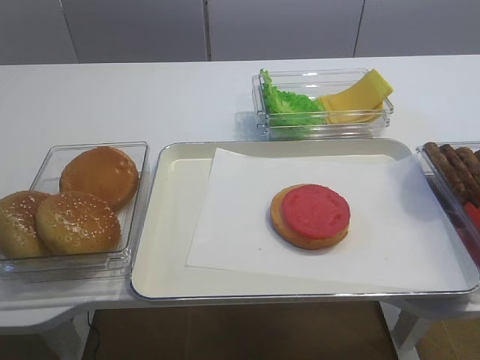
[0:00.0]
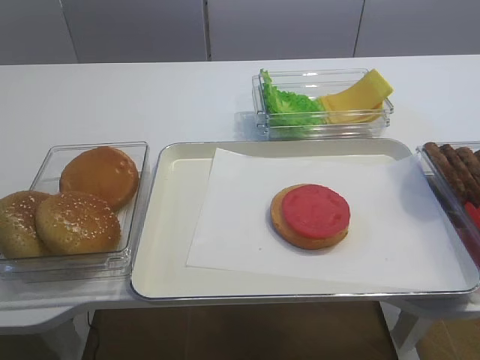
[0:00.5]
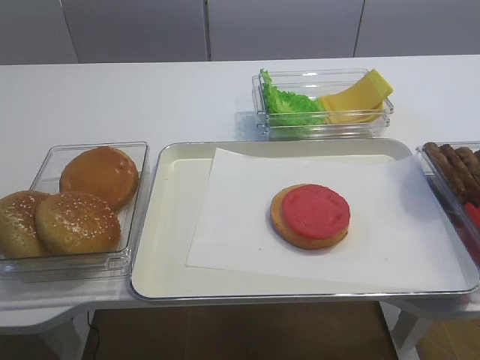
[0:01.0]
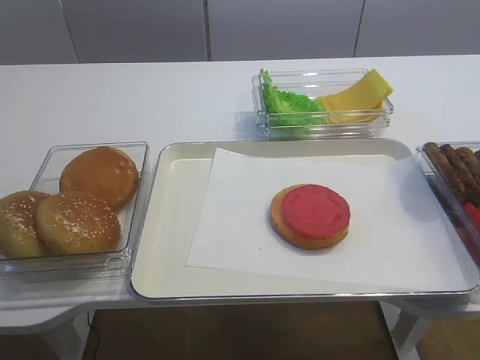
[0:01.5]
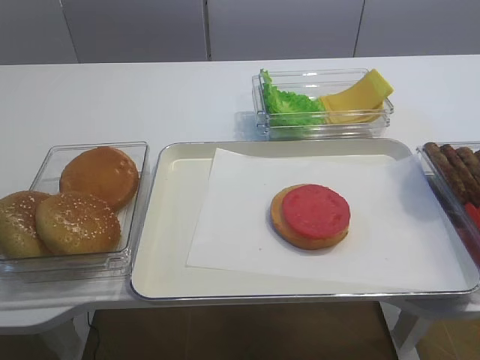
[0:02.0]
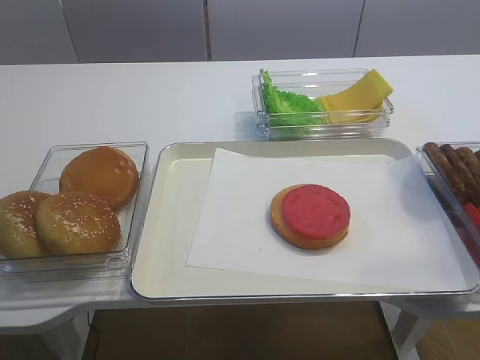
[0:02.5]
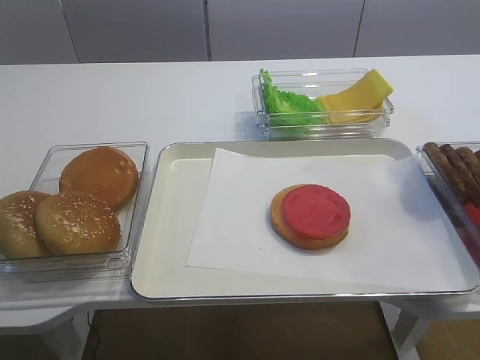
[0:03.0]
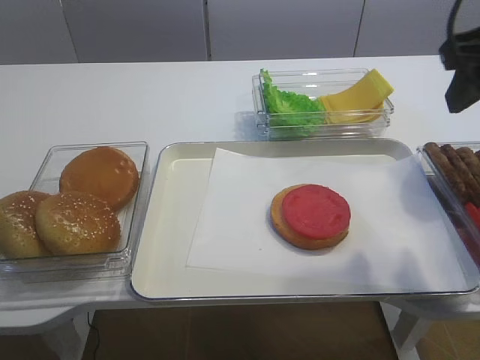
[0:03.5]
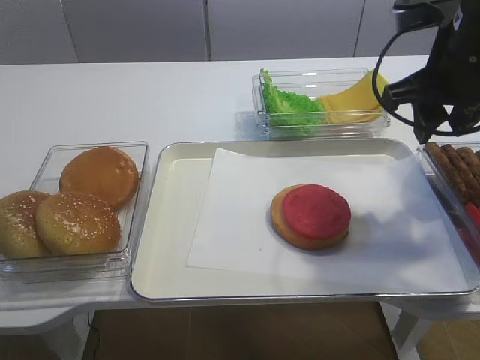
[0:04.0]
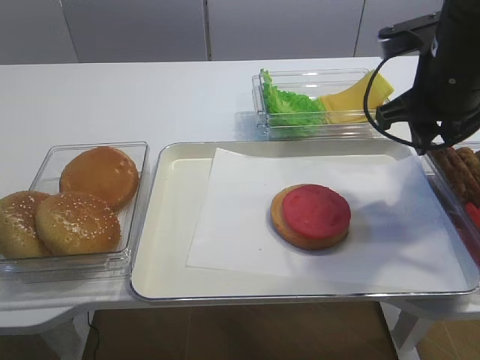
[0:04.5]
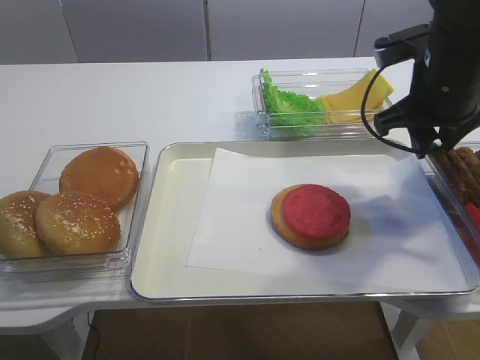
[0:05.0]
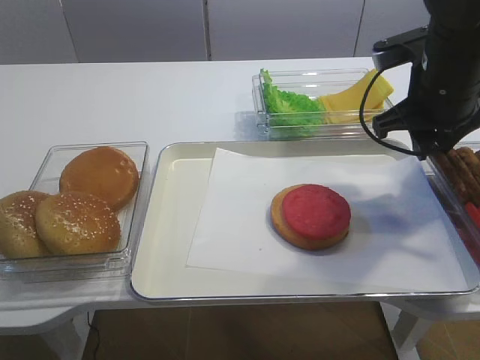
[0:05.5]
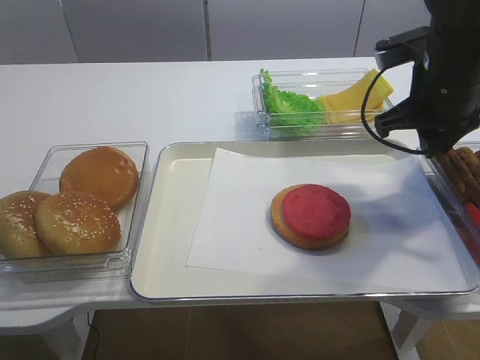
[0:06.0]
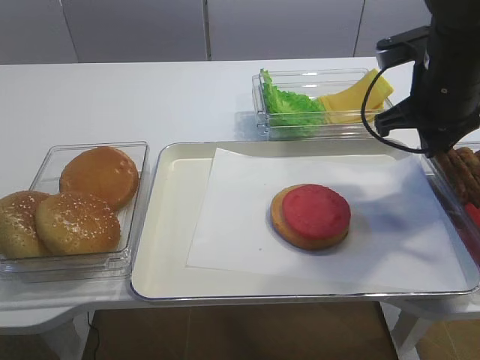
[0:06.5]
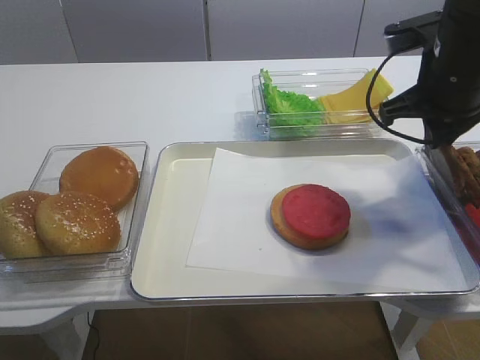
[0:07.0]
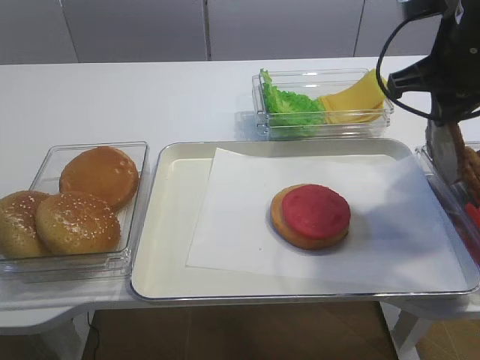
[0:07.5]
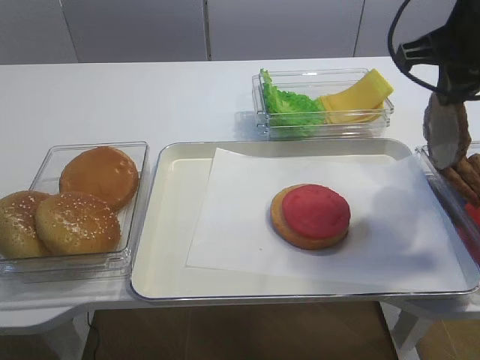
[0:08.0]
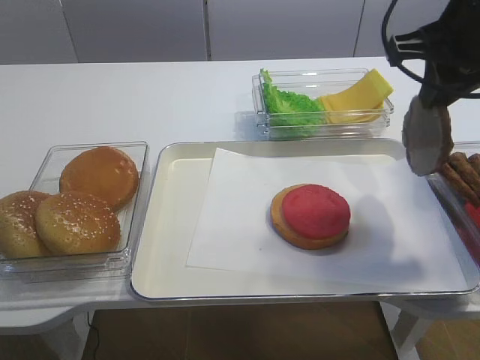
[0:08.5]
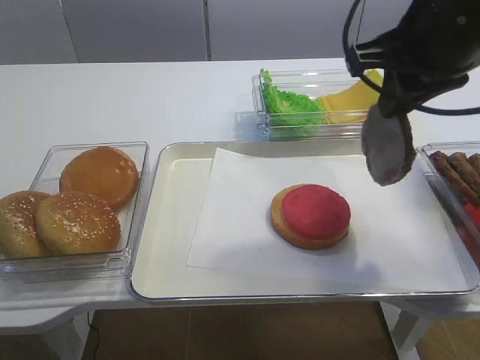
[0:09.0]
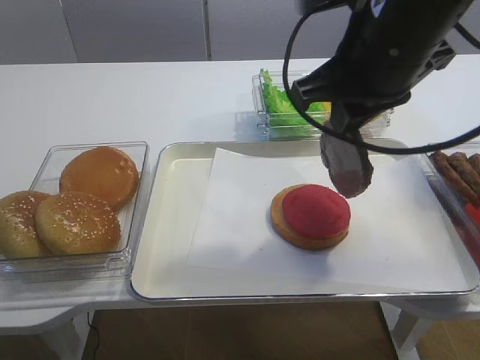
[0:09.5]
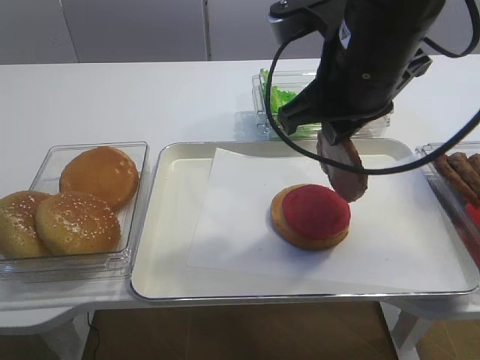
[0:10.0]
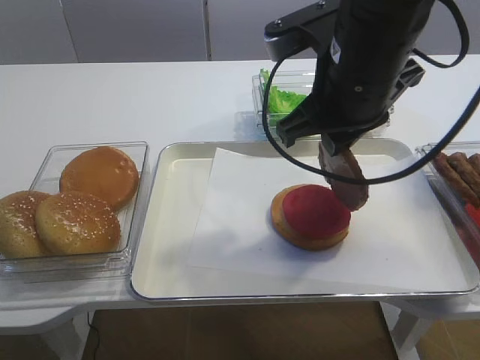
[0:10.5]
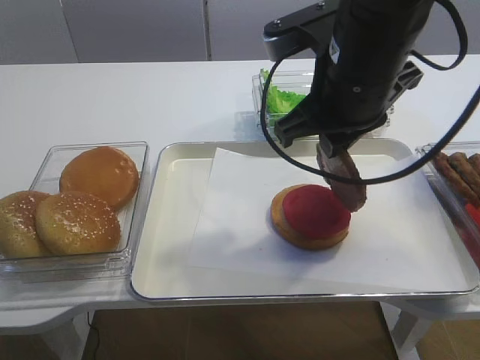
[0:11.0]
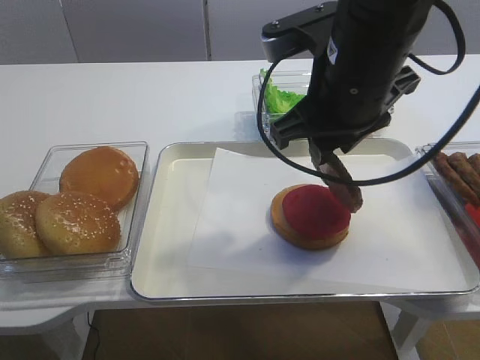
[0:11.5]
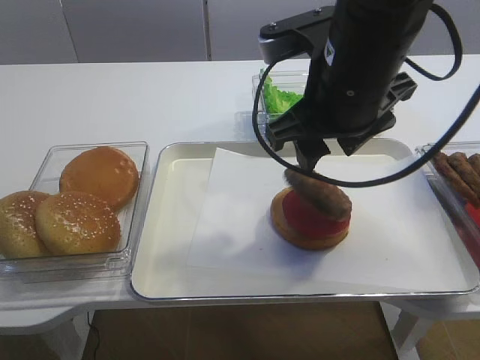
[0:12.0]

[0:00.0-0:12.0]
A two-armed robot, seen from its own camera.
Step, 0:00.0 to 0:07.0: Pick up the cutlet with the right gripper.
0:02.0 to 0:04.0: The right gripper shifts approximately 30 cm forward.
0:04.0 to 0:06.0: The right gripper shifts by about 5 cm, and closes.
0:06.0 to 0:08.0: The right gripper shifts about 10 cm upward.
0:08.0 to 0:10.0: The right gripper heads to the left, covering approximately 10 cm.
0:10.0 to 0:12.0: The right gripper opens its fingers.

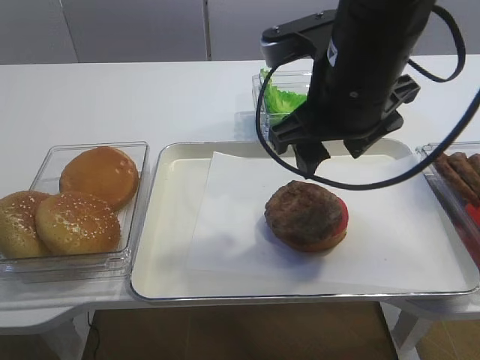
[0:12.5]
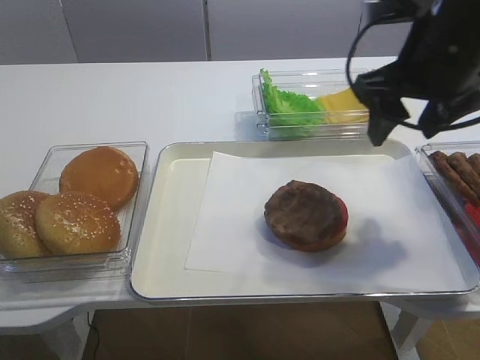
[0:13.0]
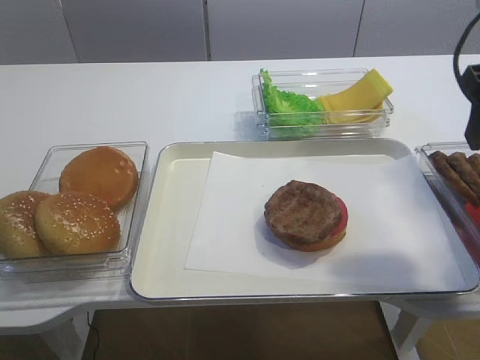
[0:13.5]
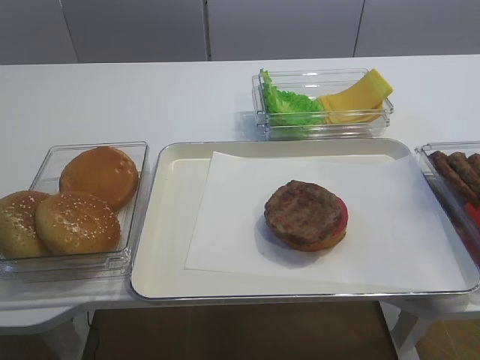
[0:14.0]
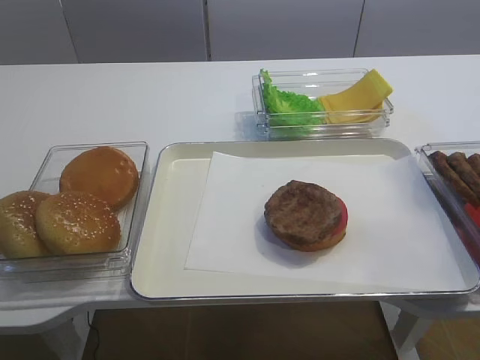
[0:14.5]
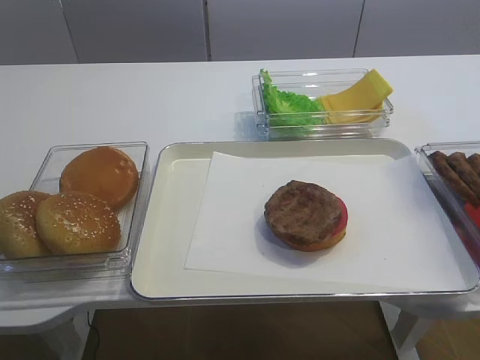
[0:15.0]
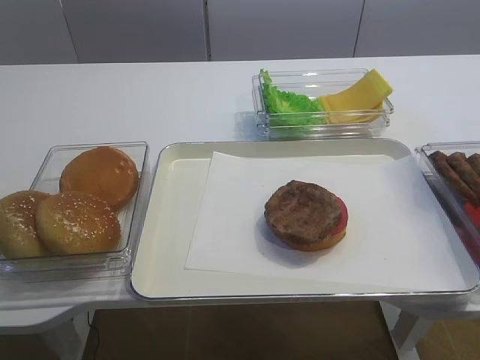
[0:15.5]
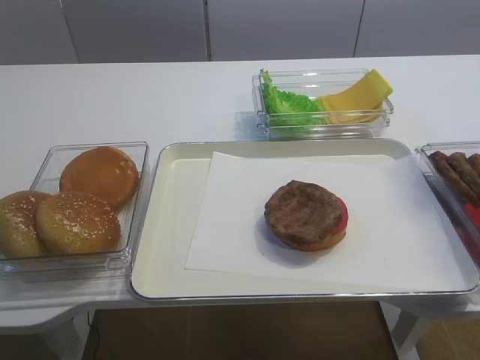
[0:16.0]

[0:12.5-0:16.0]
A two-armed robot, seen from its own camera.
0:12.5 to 0:14.5: The right gripper shifts approximately 30 cm backward and to the right.

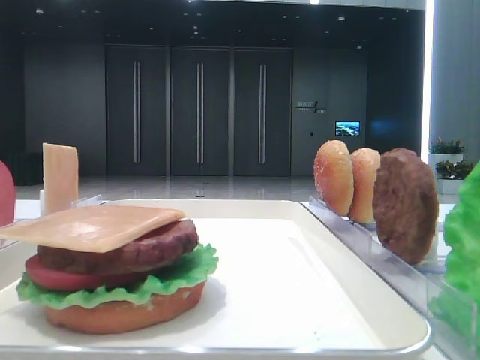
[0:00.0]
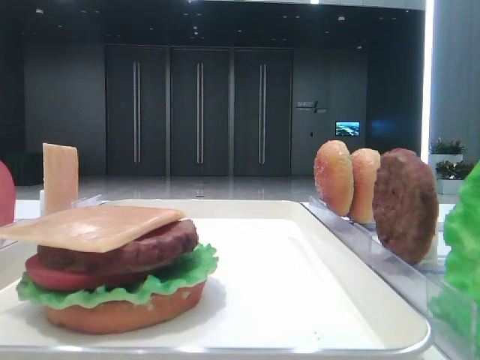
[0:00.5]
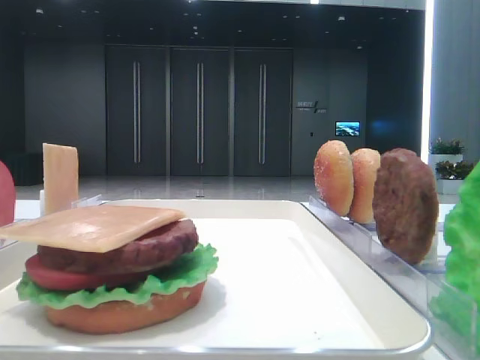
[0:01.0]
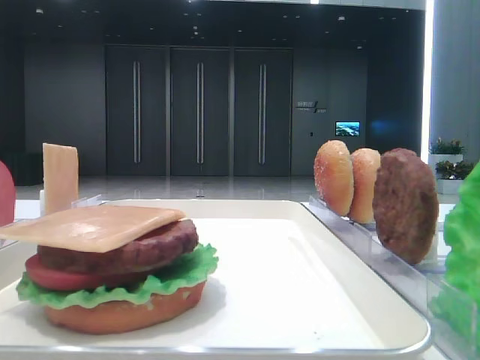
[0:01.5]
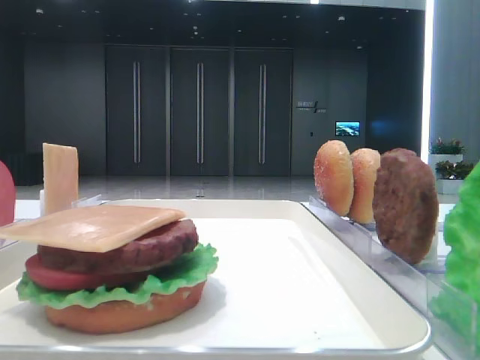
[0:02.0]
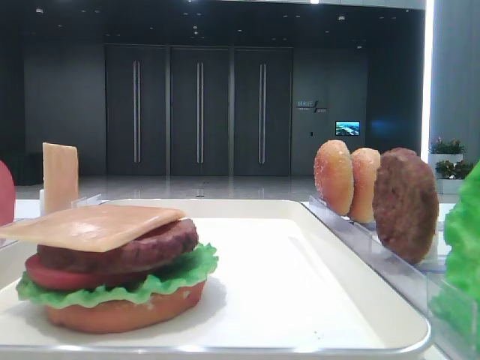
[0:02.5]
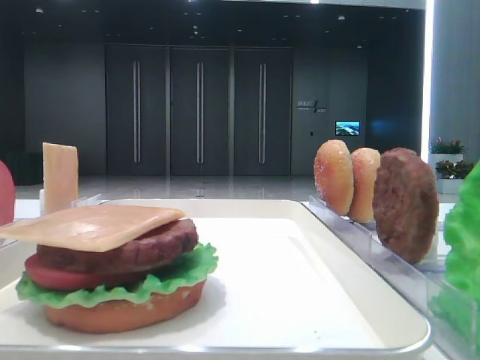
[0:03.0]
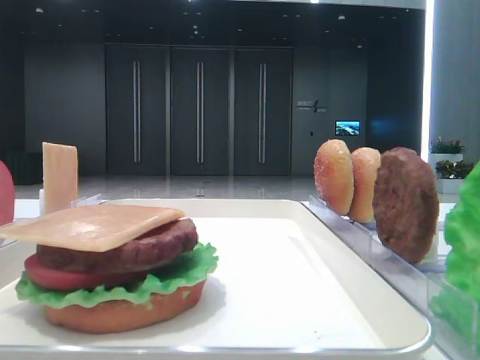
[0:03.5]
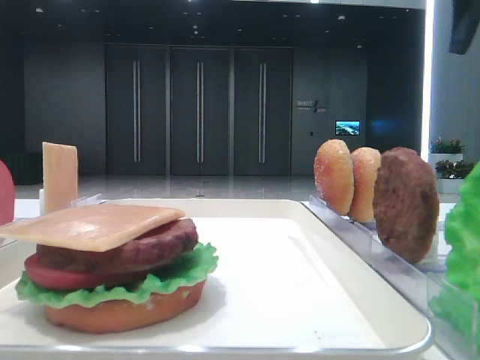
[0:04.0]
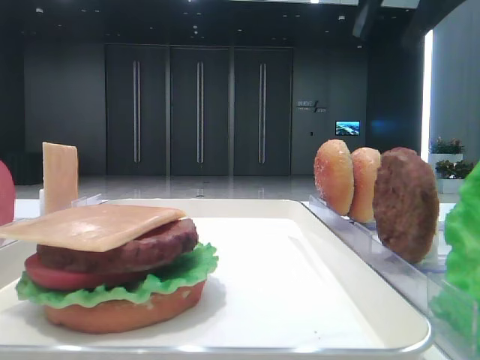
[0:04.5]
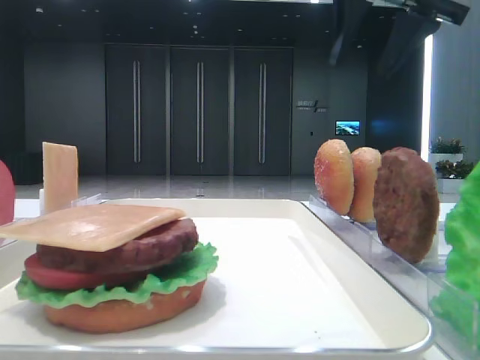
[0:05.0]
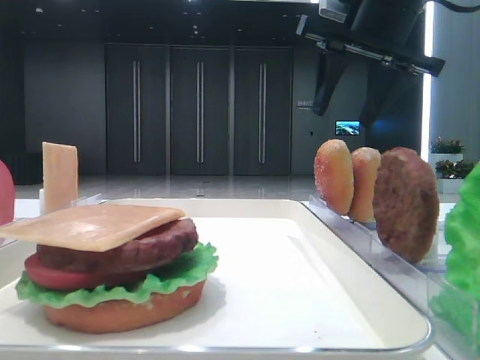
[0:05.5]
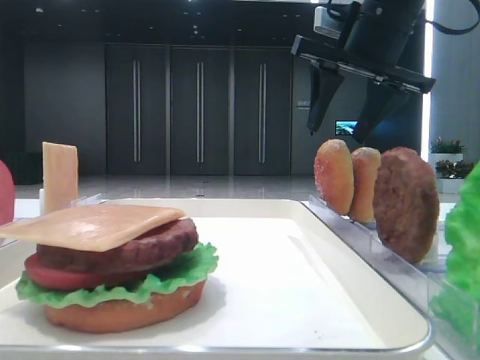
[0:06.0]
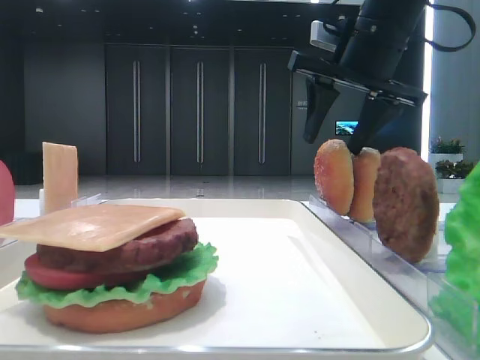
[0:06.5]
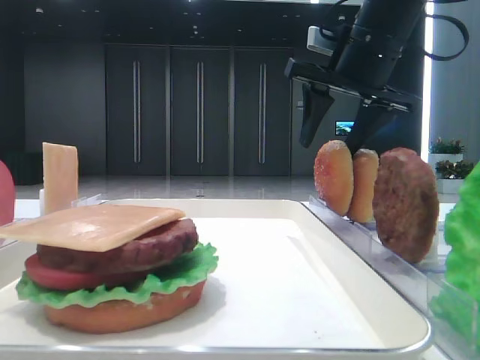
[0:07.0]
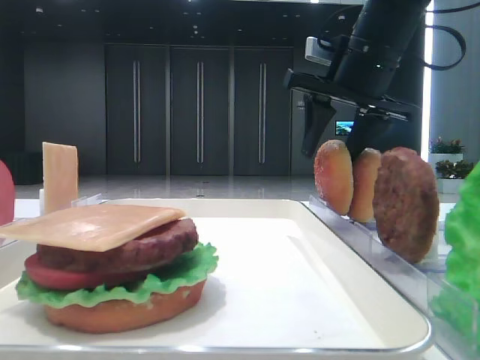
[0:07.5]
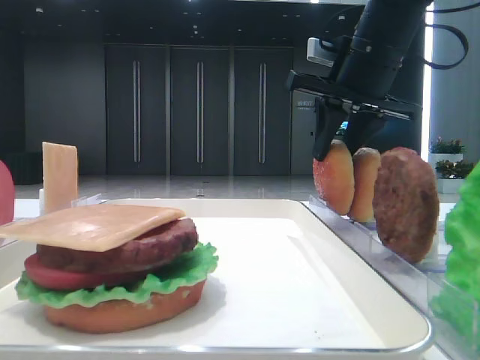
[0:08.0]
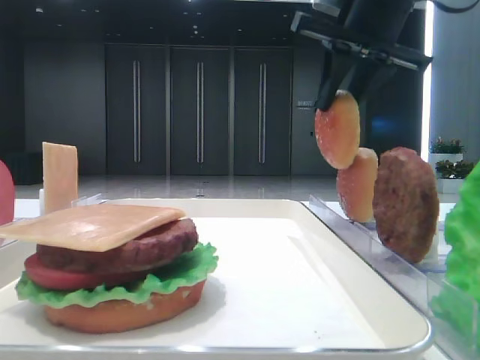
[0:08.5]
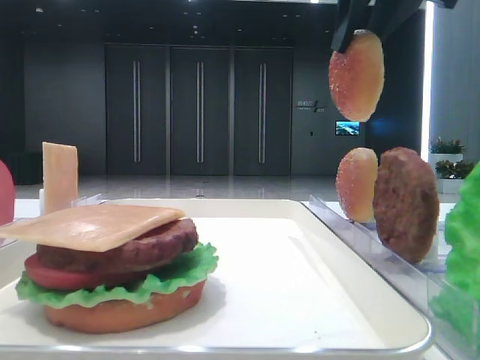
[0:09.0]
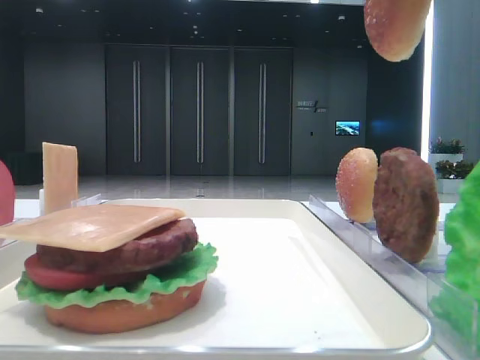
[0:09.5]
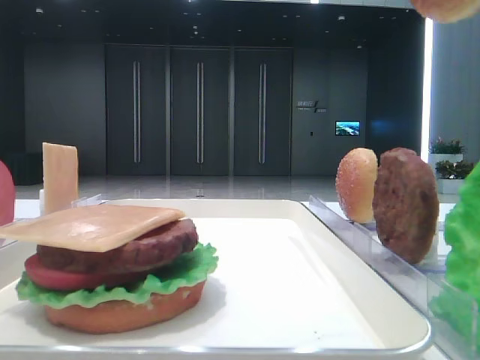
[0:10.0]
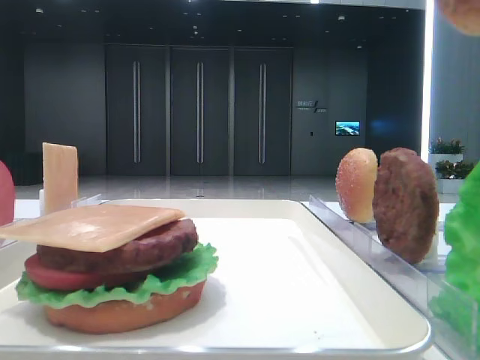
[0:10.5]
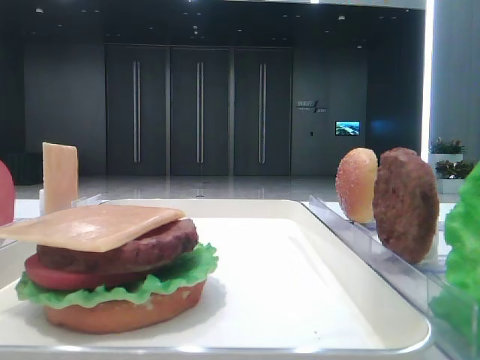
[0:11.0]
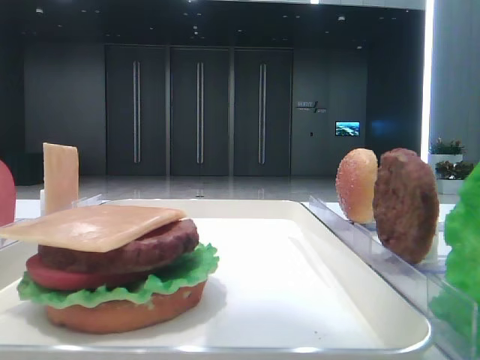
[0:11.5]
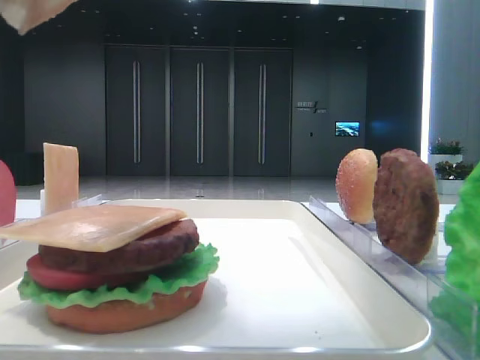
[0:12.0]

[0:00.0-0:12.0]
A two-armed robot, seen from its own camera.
Step, 0:00.0 to 0:07.5: Pick up the top bread slice with the right hand.
0:02.0 to 0:04.0: The right gripper goes some 25 cm forward.
0:04.0 to 0:06.0: The right gripper travels to the left and downward by about 15 cm.
0:06.0 to 0:08.0: The right gripper closes up.
0:08.0 to 0:10.0: The right gripper travels backward and upward by some 25 cm.
0:10.0 to 0:12.0: The left gripper closes. Meanwhile the right gripper shifts about 15 cm to the left and downward.
